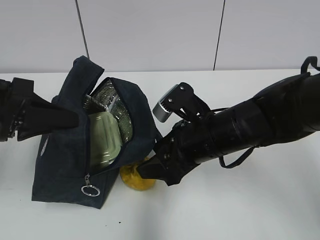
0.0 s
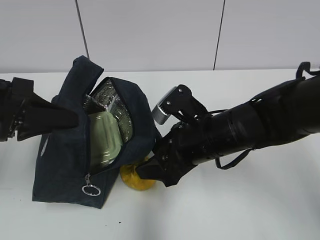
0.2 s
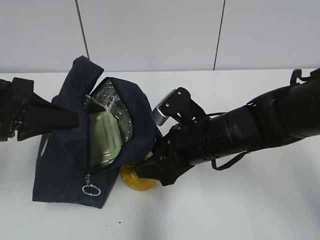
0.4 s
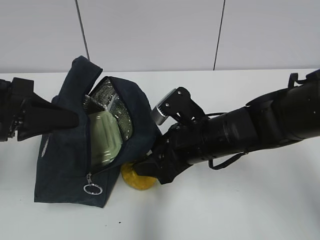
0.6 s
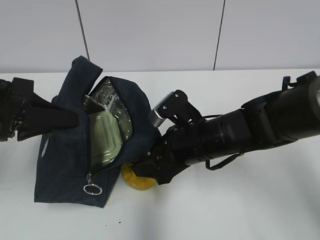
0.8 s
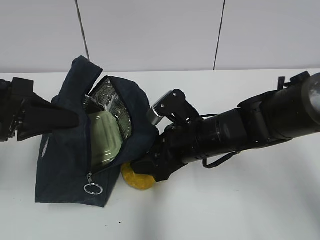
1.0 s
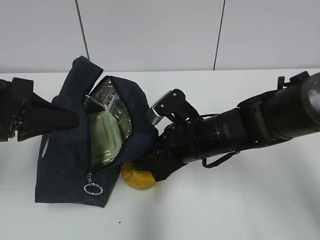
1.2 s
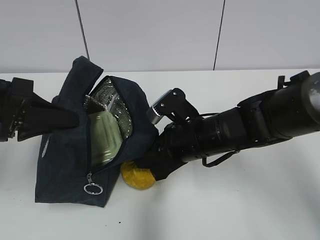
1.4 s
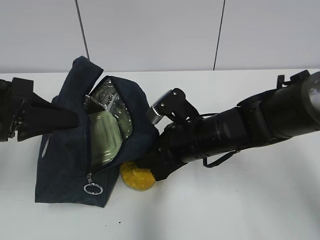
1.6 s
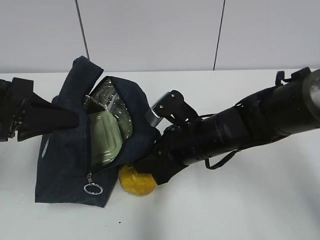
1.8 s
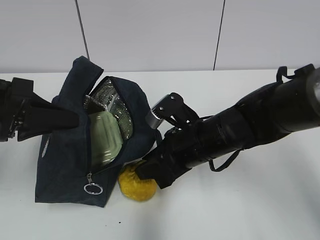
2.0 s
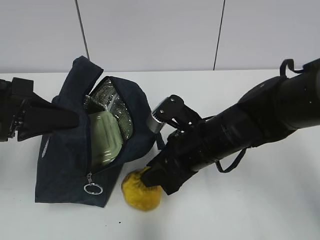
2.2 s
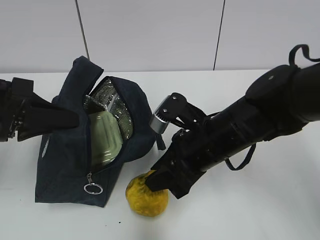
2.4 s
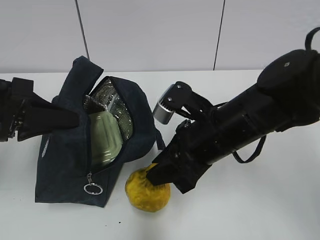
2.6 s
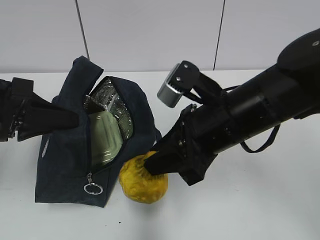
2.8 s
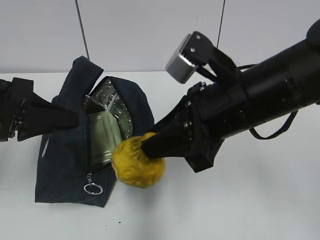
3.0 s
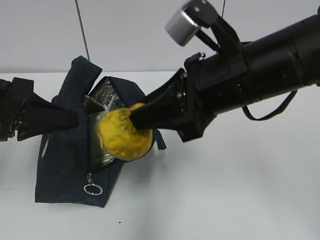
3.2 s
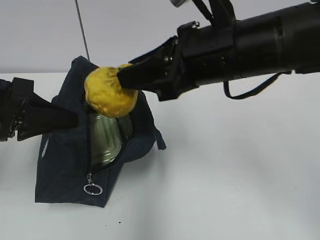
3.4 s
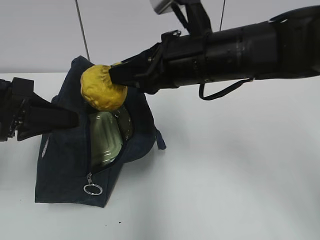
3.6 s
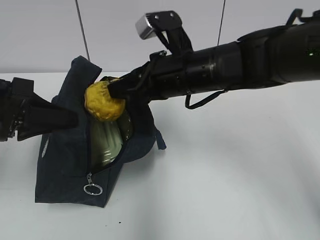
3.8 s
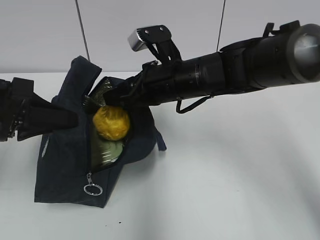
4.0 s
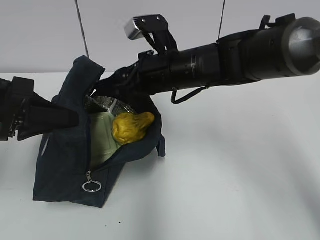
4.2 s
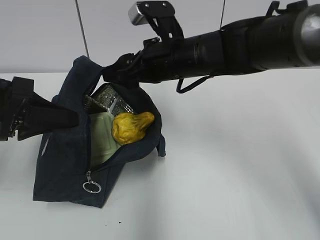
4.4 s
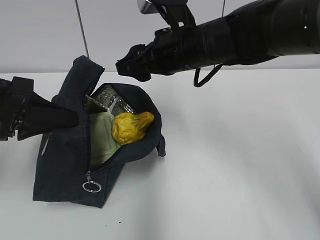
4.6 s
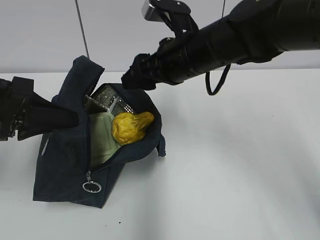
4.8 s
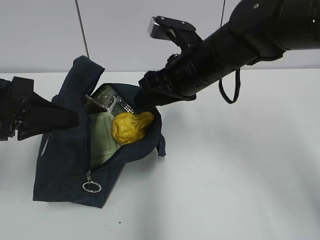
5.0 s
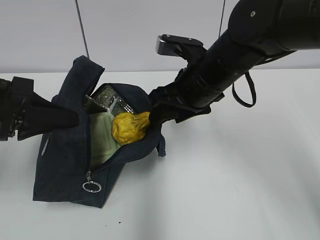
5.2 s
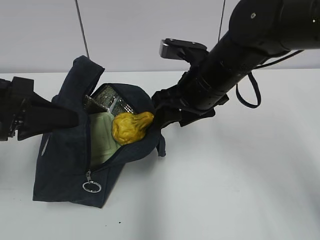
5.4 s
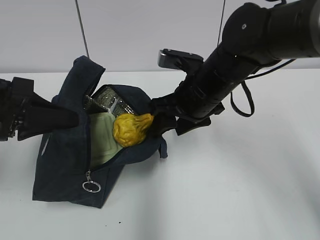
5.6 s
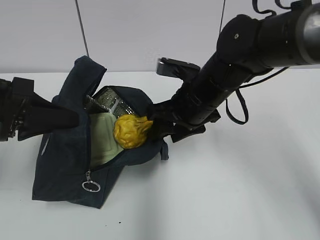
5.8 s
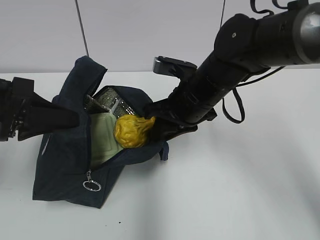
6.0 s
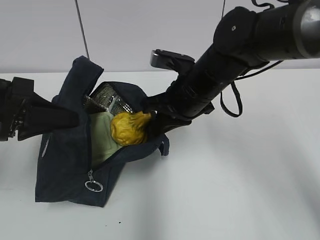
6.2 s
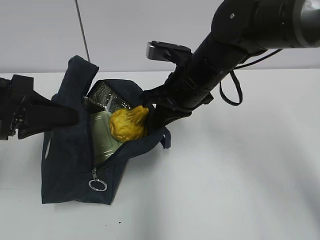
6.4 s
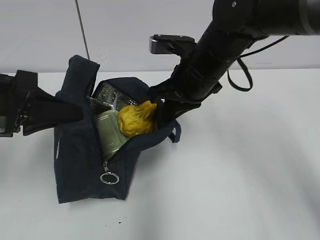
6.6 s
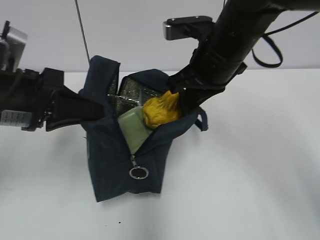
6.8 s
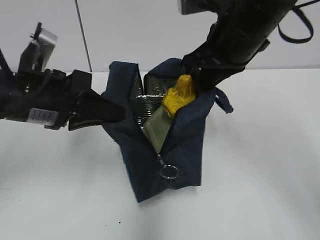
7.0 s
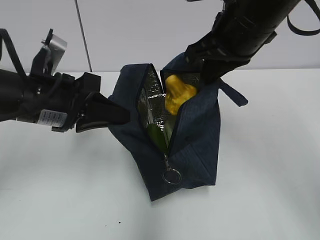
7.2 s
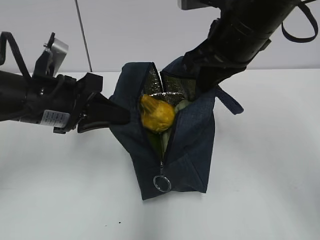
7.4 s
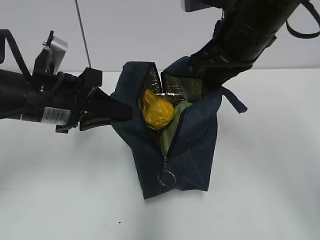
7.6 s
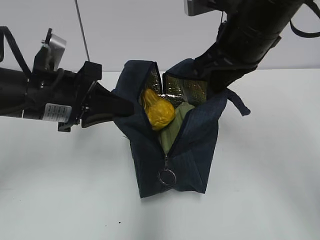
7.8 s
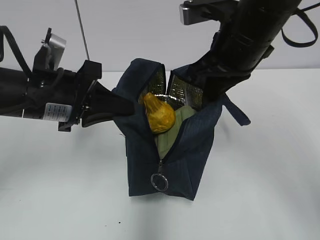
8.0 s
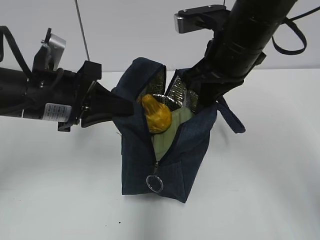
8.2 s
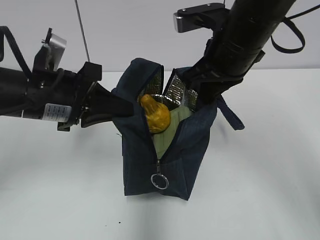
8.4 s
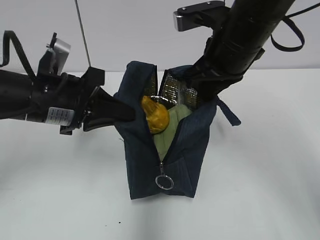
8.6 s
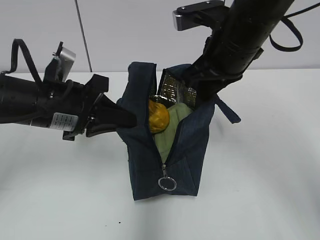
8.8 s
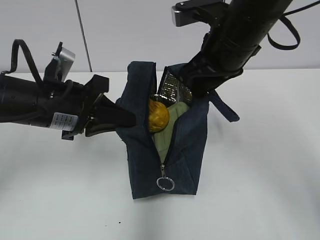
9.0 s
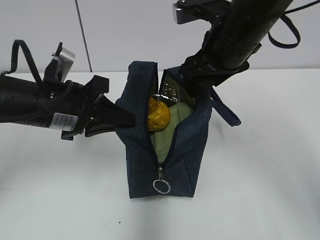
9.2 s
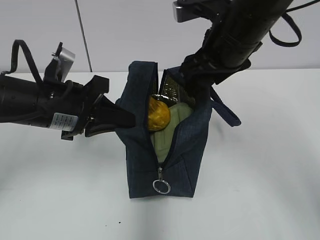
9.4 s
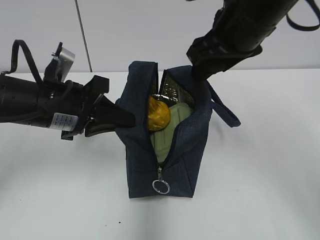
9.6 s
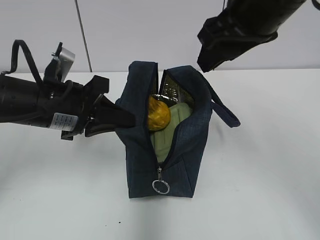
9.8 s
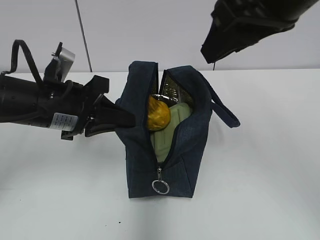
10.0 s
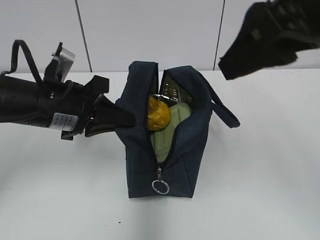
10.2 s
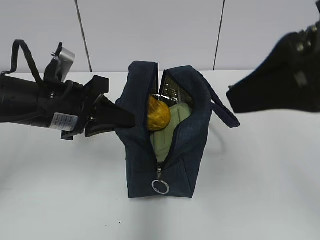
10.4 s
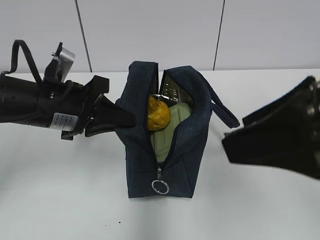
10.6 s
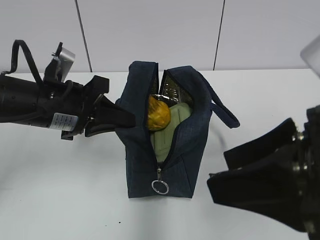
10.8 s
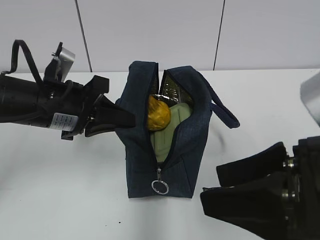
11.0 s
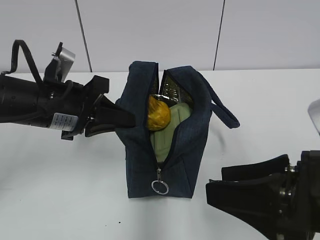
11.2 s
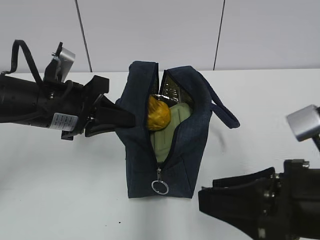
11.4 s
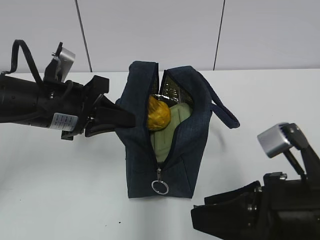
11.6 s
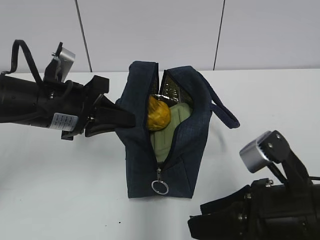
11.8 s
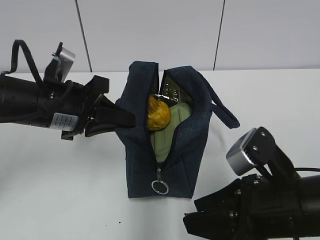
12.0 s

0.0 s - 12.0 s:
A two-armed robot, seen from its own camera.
0.0 s - 1.6 s: The right gripper closes.
1.6 s - 3.0 s: The right gripper travels upward and backward by about 15 cm.
3.0 s - 4.4 s: The right gripper moves forward, approximately 15 cm, and opens its fingers.
4.4 s - 6.0 s: The right gripper shifts by some 5 cm, and closes.
6.0 s - 7.6 s: The right gripper heads upward, covering approximately 10 cm, and closes its fingers. The left gripper goes roughly 5 cm to the right.
7.6 s - 9.0 s: The right gripper opens.
9.0 s - 10.4 s: The right gripper travels backward and upward by approximately 20 cm.
10.4 s - 12.0 s: The right gripper is displaced downward by some 20 cm.

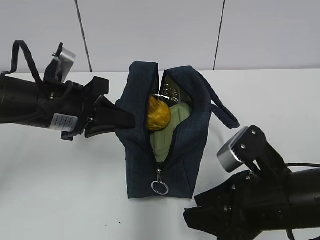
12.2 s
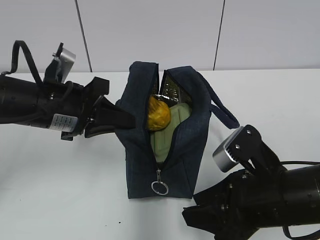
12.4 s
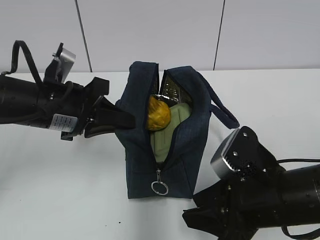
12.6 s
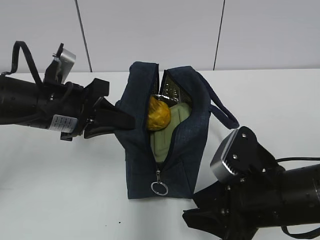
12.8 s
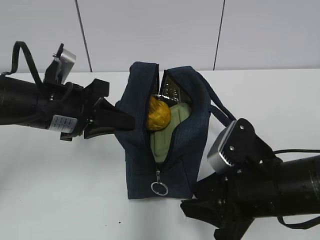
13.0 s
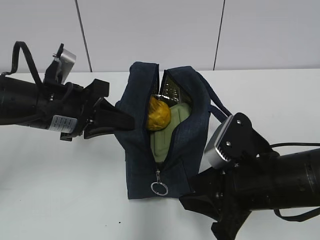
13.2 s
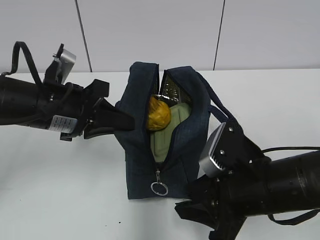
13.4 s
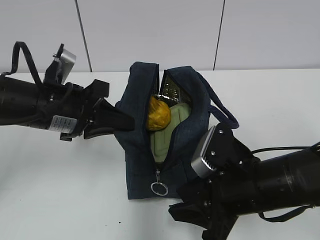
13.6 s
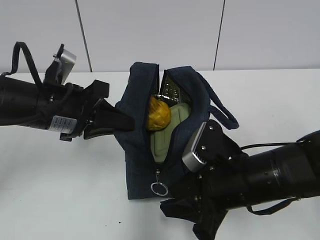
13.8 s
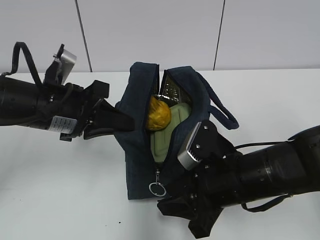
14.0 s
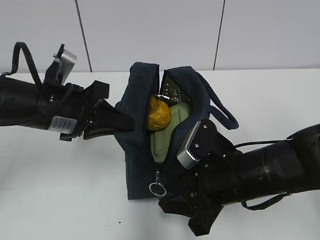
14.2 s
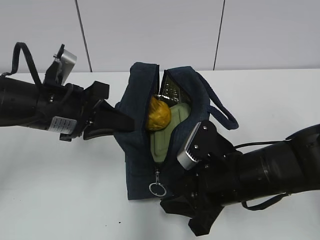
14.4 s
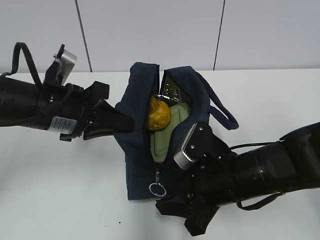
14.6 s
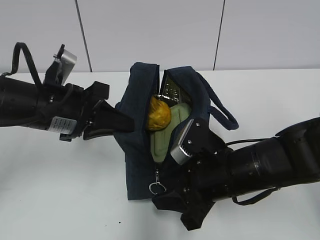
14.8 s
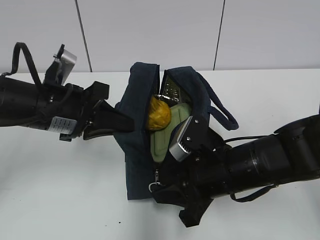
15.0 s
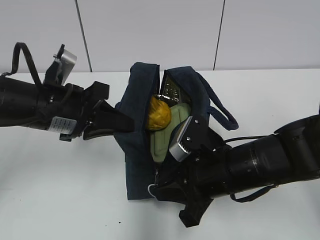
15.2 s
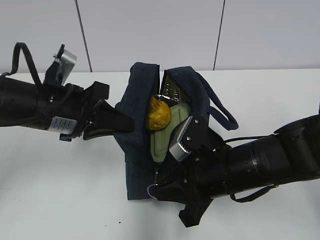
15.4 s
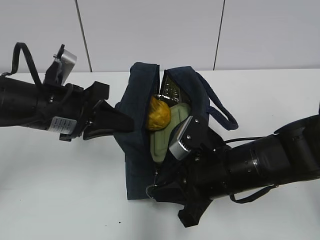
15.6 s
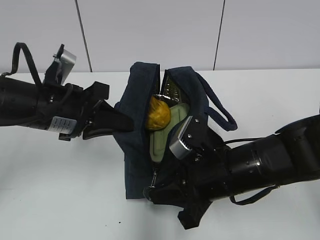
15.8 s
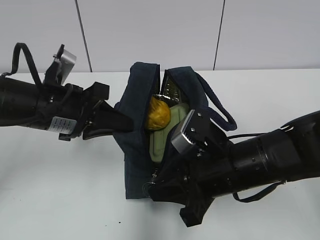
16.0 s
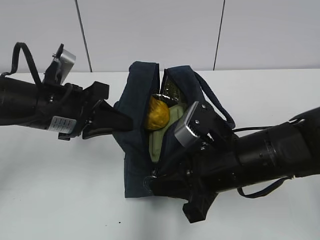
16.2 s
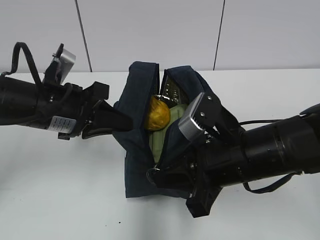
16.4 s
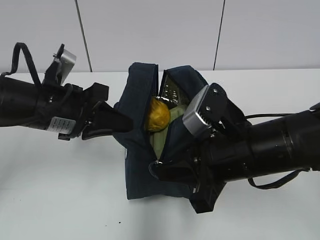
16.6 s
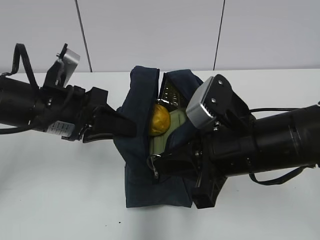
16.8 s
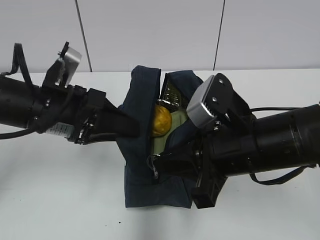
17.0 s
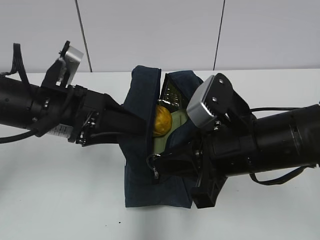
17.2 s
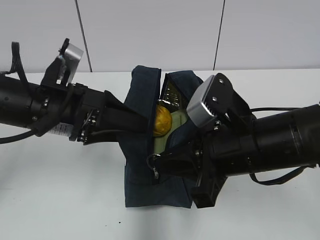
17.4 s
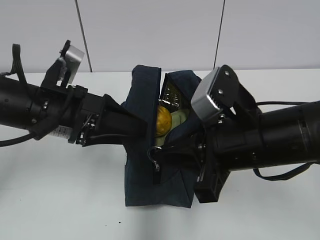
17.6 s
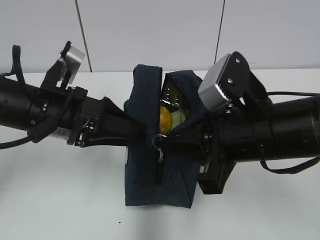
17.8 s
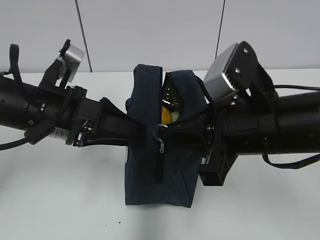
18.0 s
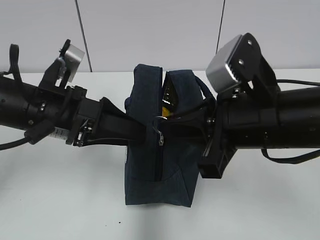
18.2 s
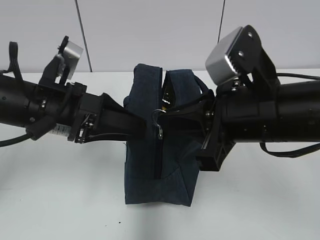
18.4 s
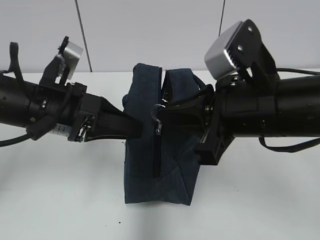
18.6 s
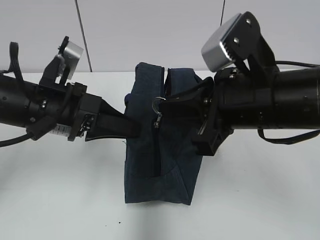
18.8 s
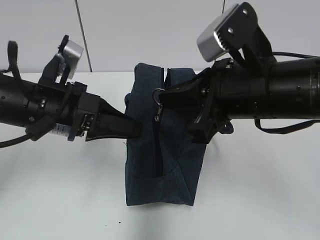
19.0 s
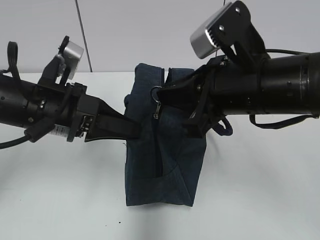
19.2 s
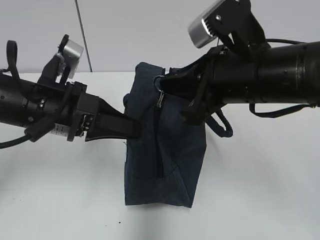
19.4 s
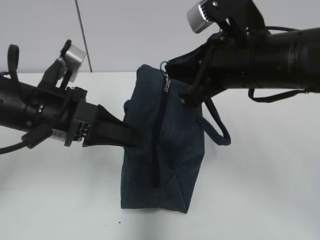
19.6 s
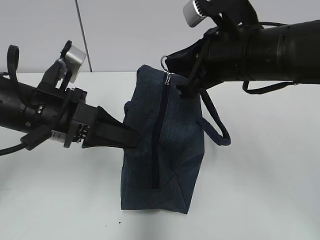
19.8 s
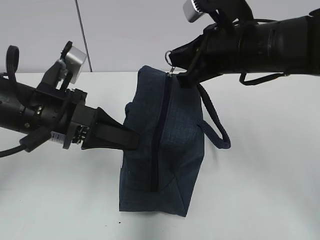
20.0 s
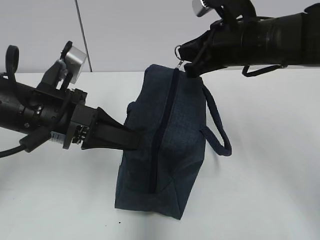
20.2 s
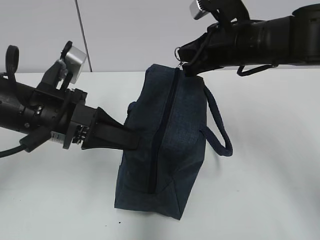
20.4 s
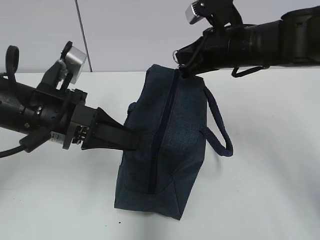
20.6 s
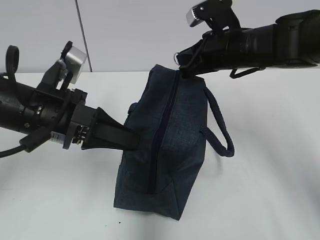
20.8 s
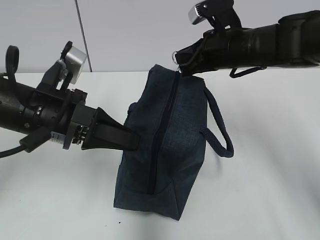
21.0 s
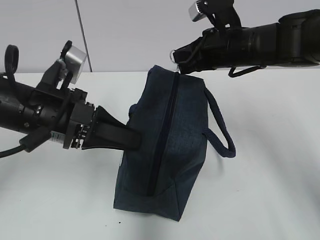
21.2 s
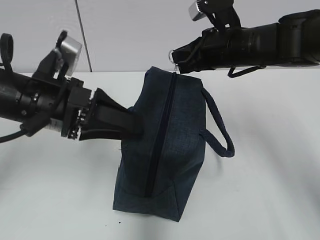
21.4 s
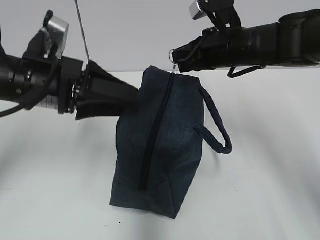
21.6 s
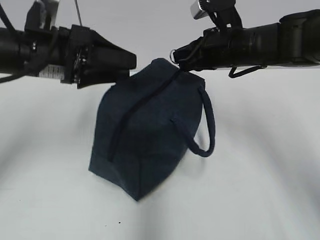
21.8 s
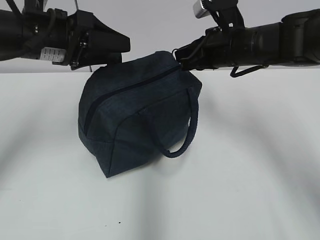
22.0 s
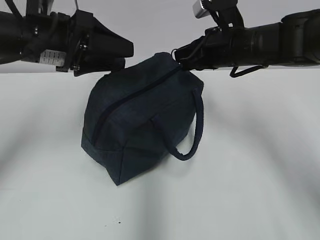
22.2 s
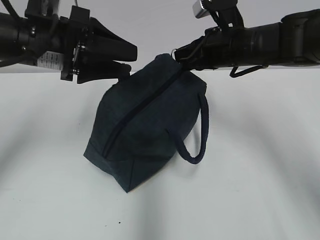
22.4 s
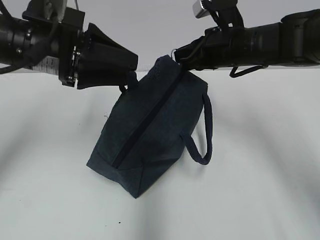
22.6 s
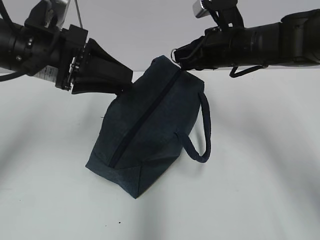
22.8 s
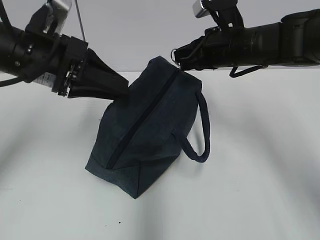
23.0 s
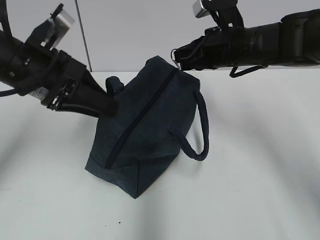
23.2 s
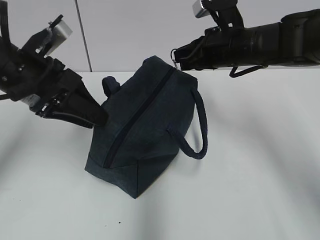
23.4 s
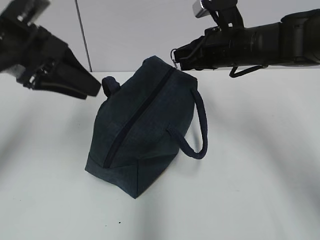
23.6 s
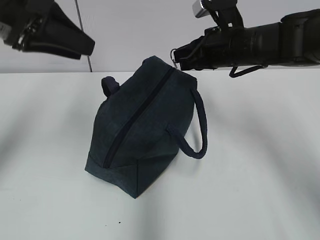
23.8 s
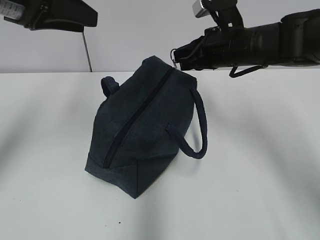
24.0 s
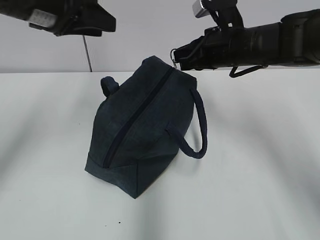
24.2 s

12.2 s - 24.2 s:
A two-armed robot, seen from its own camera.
12.2 s - 13.8 s: The right gripper moves approximately 5 cm.
13.8 s - 15.2 s: The right gripper closes.
15.2 s - 16.6 s: The right gripper moves upward, about 5 cm.
16.6 s - 18.2 s: The right gripper shifts approximately 5 cm upward; the left gripper opens its fingers.
18.2 s - 19.8 s: The right gripper goes some 5 cm forward, while the left gripper closes up.
19.8 s - 21.2 s: The right gripper moves forward, about 10 cm.
21.2 s - 22.6 s: The left gripper goes about 5 cm upward, and opens its fingers.
22.6 s - 24.2 s: The left gripper ends up some 5 cm from where it was.
